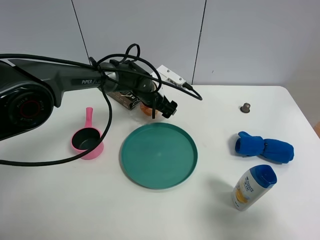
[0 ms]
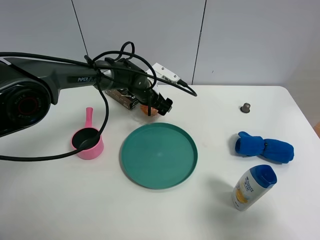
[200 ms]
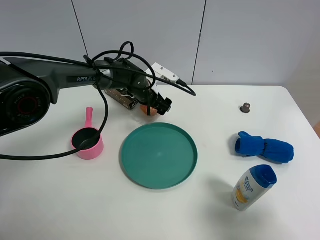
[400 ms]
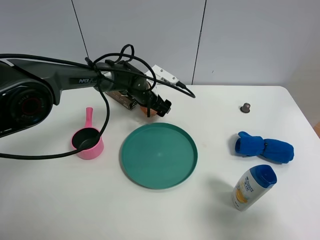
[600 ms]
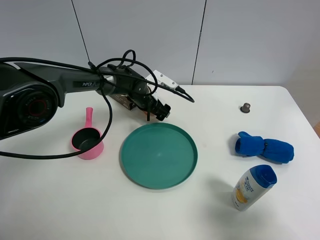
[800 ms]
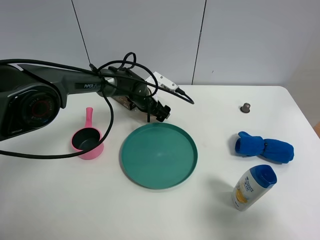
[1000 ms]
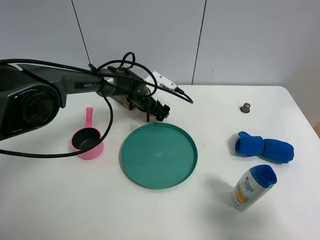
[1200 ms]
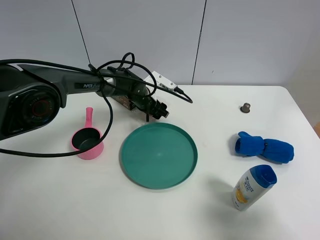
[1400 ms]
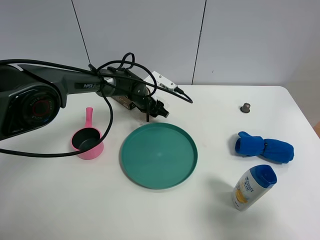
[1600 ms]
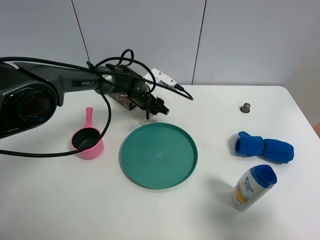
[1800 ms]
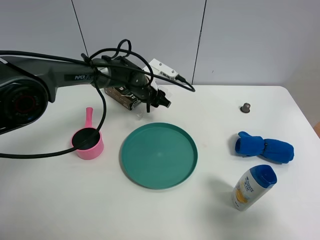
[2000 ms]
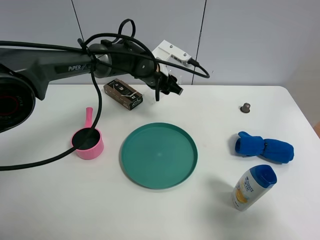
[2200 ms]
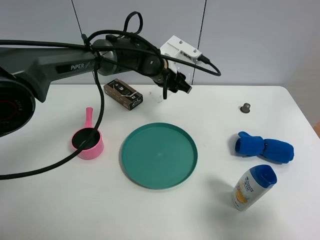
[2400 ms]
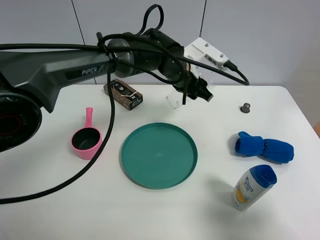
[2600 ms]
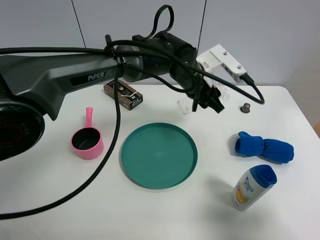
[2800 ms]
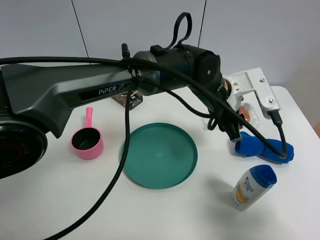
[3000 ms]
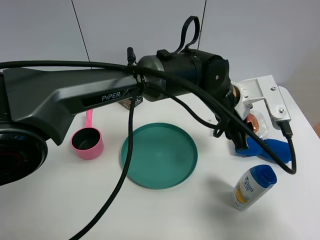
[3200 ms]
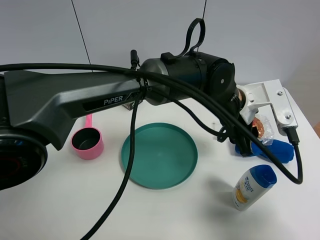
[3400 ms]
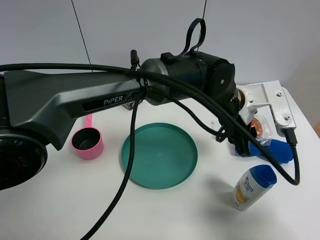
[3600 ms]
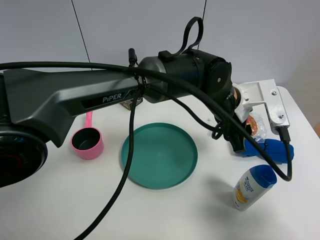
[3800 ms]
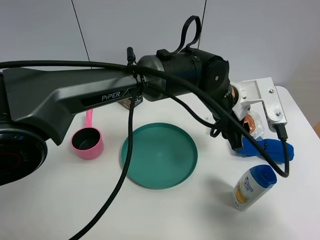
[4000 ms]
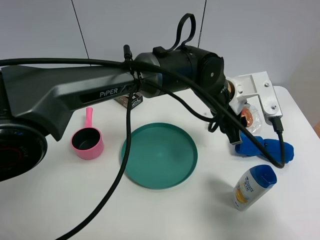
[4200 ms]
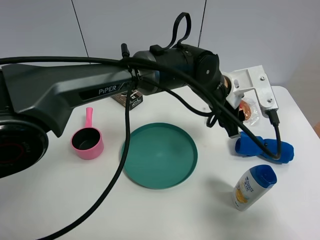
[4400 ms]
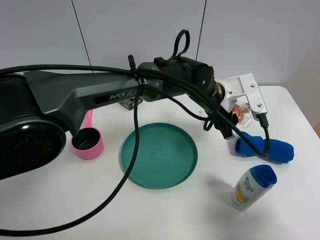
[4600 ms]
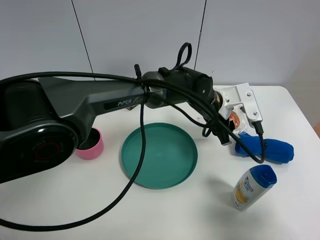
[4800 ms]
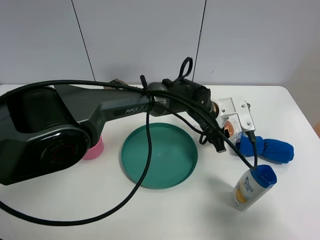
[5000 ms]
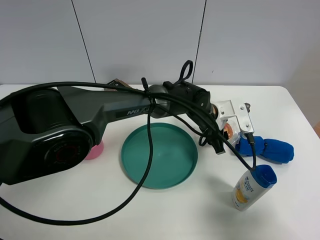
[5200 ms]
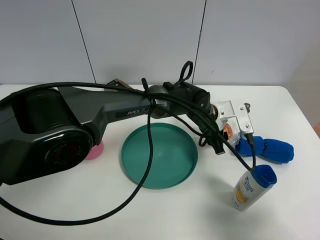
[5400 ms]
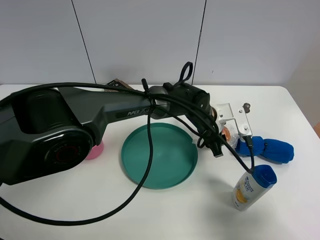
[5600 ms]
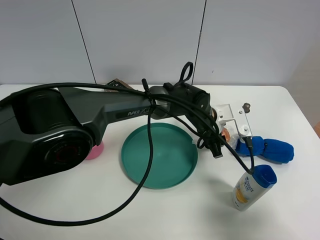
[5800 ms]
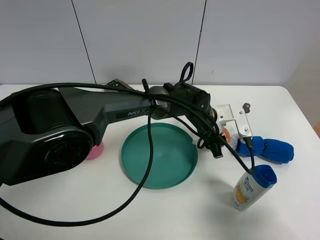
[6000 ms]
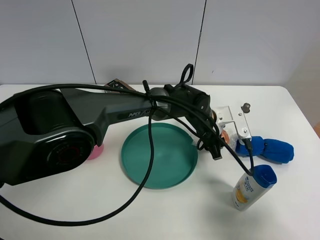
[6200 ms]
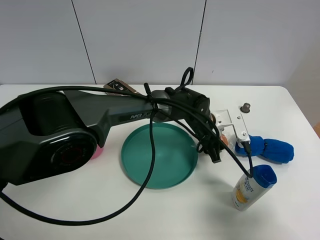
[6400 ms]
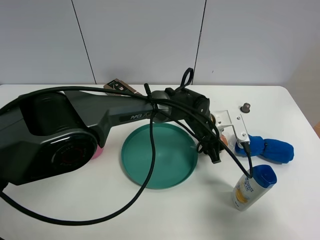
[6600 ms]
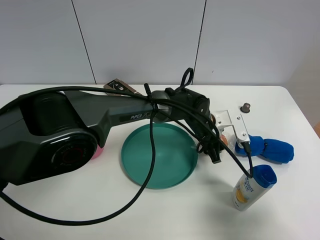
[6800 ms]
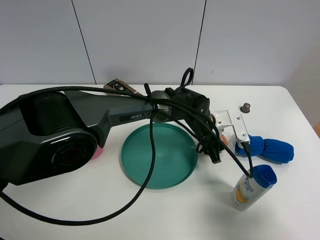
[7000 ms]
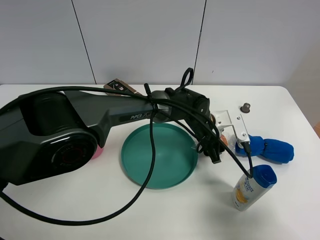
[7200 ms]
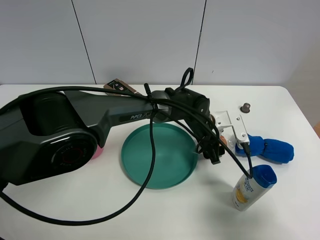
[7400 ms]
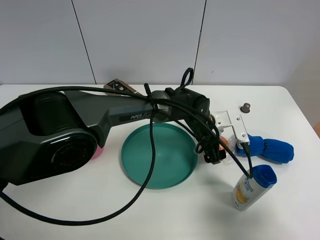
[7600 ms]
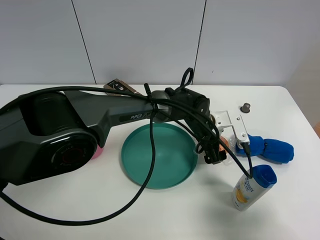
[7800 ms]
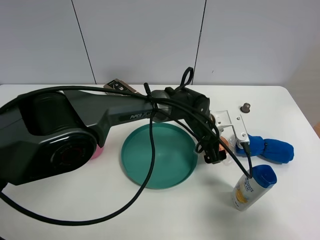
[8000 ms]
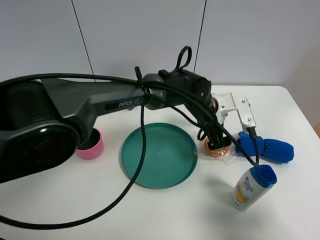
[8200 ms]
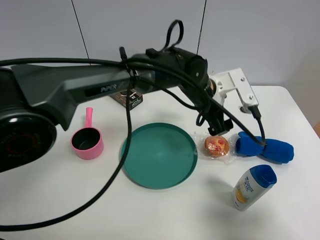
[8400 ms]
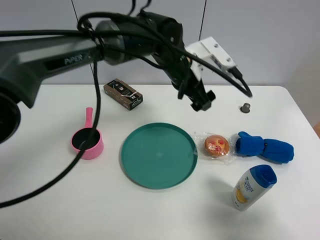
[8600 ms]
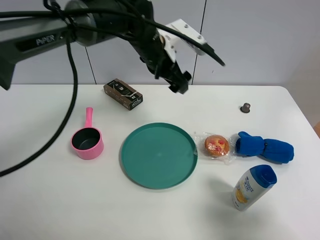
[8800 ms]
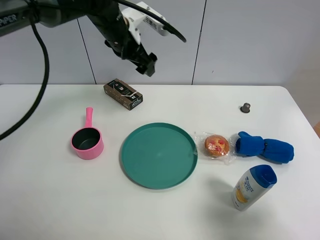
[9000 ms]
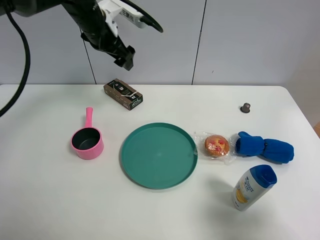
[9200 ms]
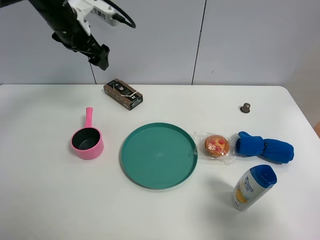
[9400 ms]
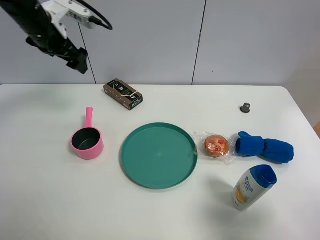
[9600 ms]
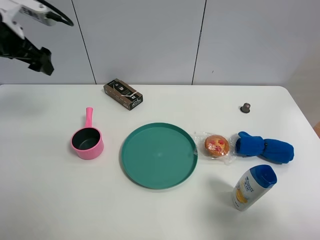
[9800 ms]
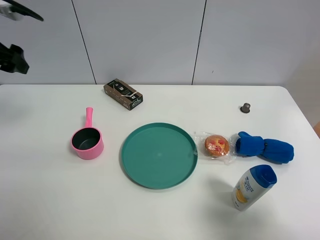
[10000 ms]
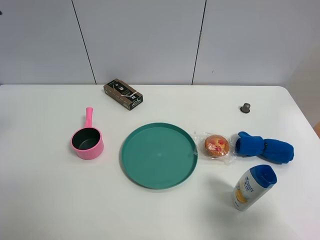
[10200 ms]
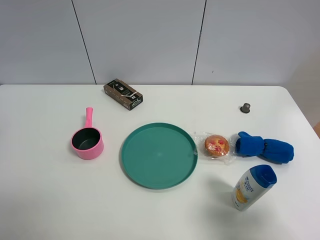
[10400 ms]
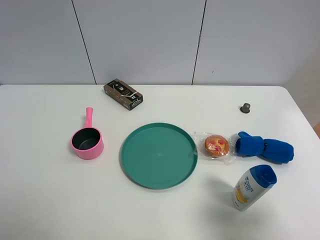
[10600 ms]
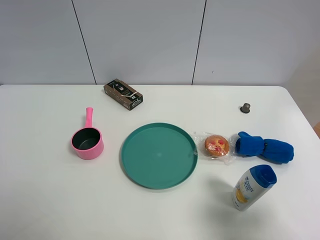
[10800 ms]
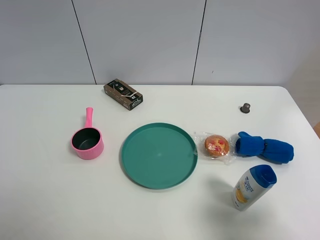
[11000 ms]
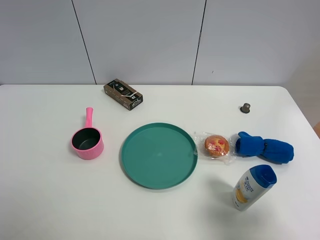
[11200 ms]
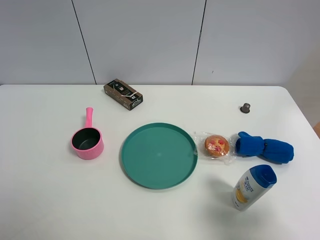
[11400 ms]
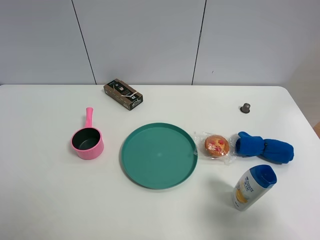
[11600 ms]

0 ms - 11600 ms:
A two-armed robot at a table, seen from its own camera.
Task of the whole recording: the gripper move the object.
Step, 1600 ms - 8000 ms: Place the egg tart on the table with the left gripper.
0 ms - 1400 ms: The left gripper closes up.
1400 ms - 2800 ms: The left gripper travels upward, to the right and backward by some 20 cm.
4400 ms - 5800 ms: The left gripper shifts roughly 10 cm downward.
5800 ms - 7200 ms: There are only small adjustments of the grippers.
7200 ms - 8800 ms: The left gripper travels upward, to the left and forward by approximately 25 cm, and opens.
8800 ms - 10200 ms: The left gripper is displaced to the left and backward by approximately 35 cm.

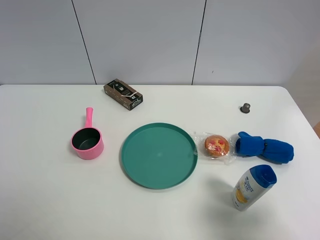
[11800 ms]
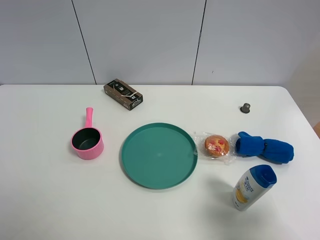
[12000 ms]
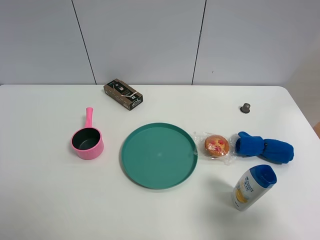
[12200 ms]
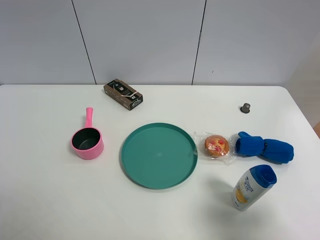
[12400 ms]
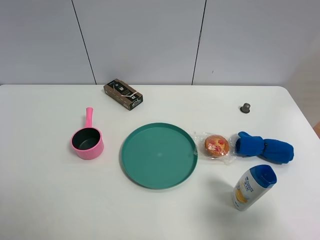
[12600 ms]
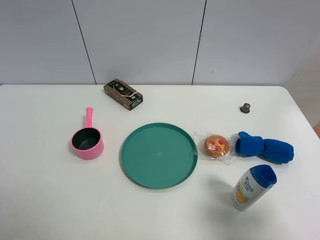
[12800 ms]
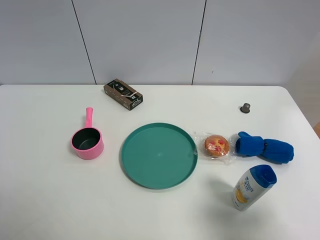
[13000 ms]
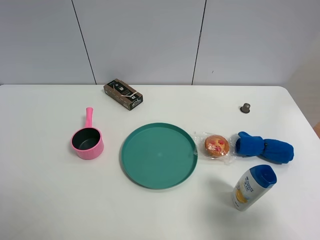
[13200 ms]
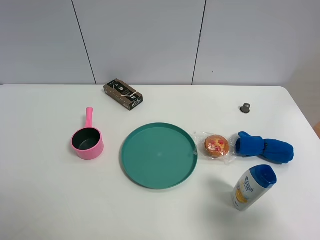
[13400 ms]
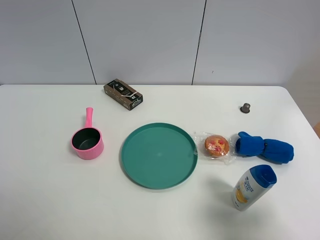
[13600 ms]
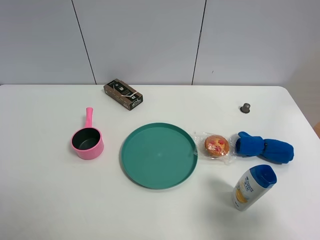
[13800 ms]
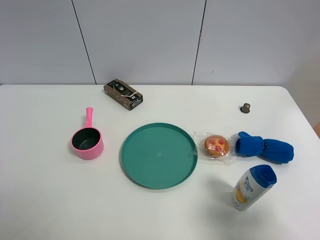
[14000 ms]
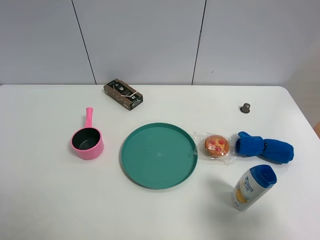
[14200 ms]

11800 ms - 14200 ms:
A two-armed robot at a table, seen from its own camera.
Task of the whole recording: the gripper move the object.
13000 ms - 14200 ms: The two grippers keep their place.

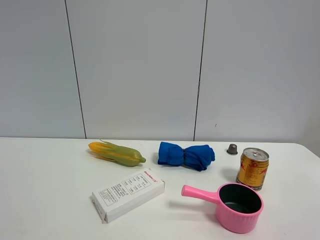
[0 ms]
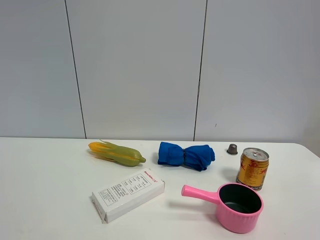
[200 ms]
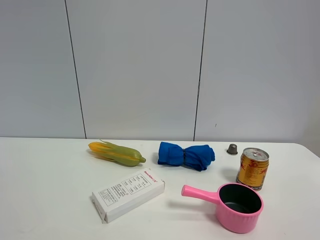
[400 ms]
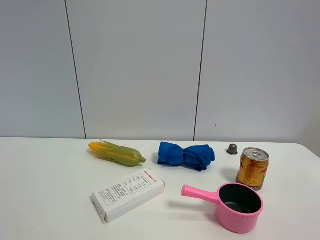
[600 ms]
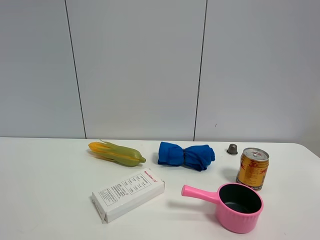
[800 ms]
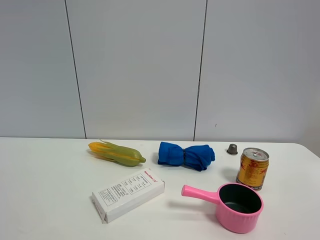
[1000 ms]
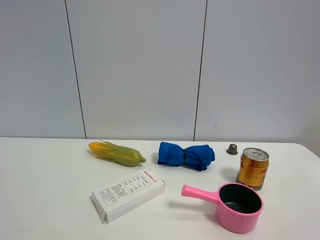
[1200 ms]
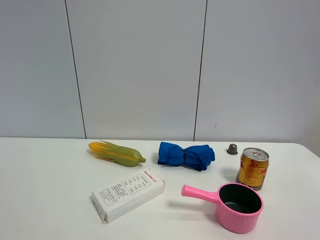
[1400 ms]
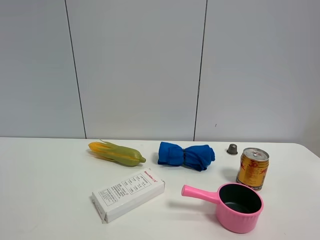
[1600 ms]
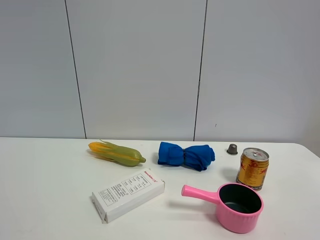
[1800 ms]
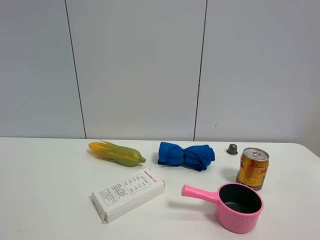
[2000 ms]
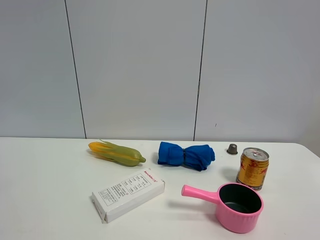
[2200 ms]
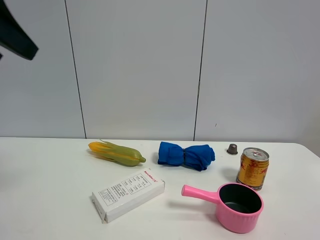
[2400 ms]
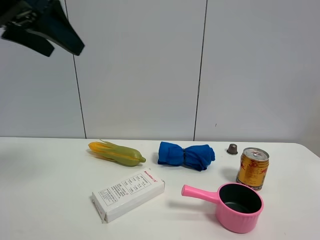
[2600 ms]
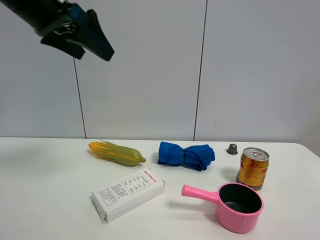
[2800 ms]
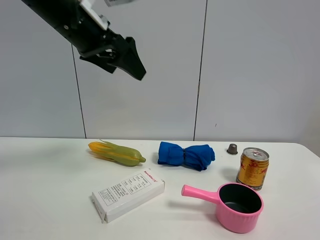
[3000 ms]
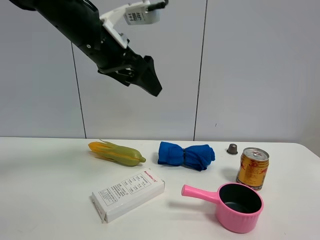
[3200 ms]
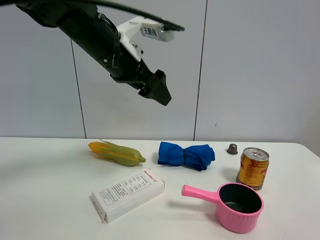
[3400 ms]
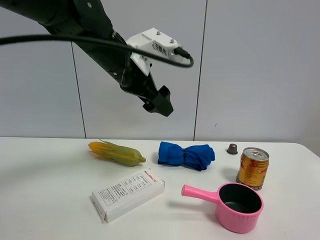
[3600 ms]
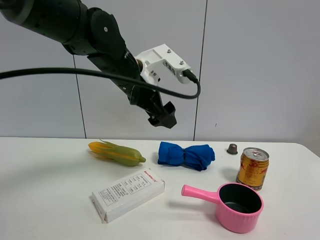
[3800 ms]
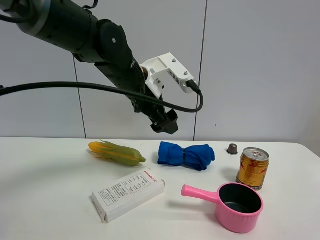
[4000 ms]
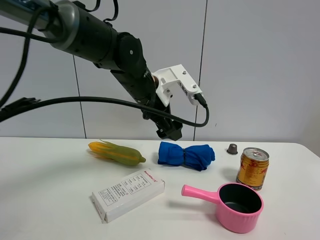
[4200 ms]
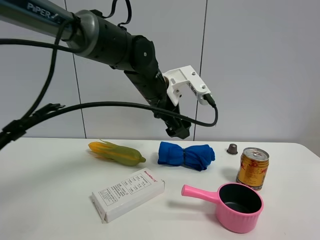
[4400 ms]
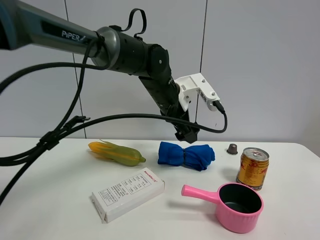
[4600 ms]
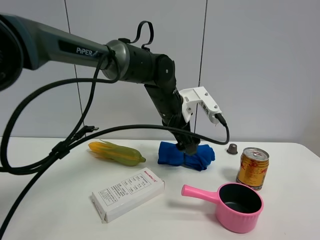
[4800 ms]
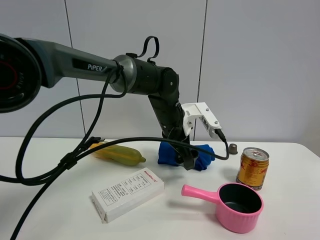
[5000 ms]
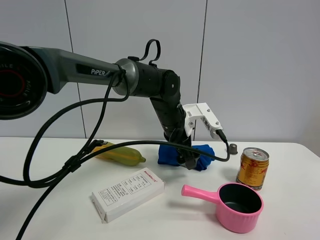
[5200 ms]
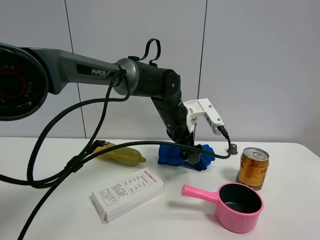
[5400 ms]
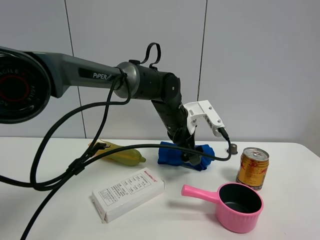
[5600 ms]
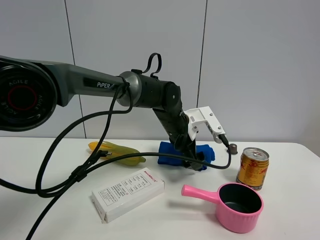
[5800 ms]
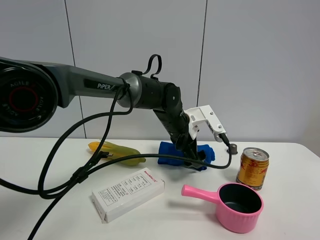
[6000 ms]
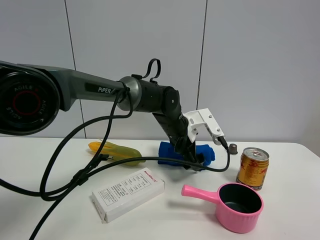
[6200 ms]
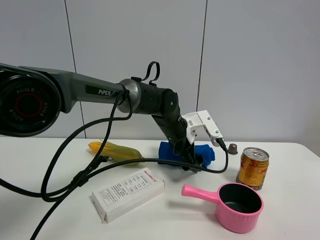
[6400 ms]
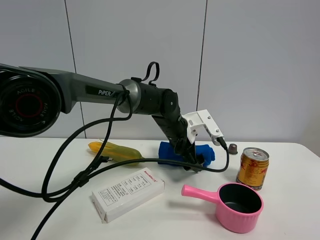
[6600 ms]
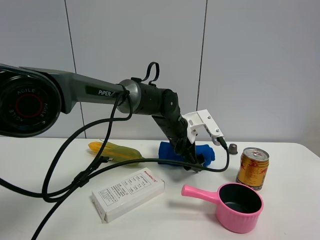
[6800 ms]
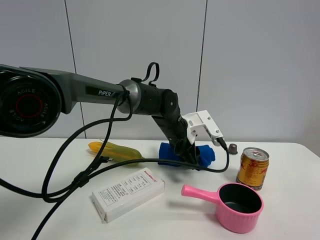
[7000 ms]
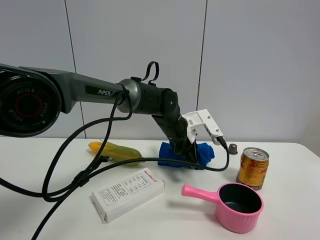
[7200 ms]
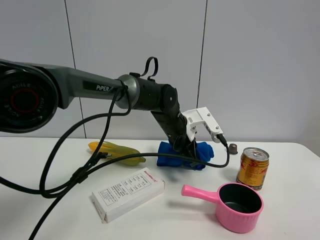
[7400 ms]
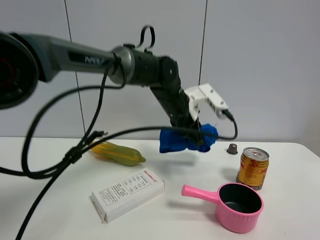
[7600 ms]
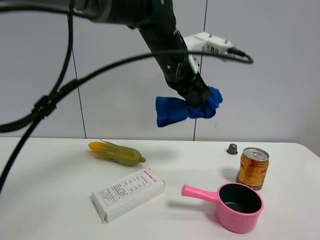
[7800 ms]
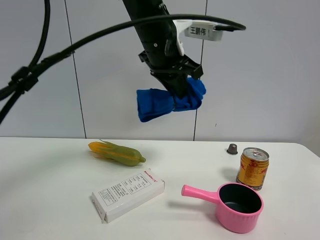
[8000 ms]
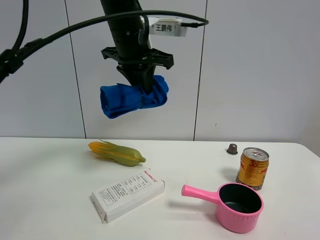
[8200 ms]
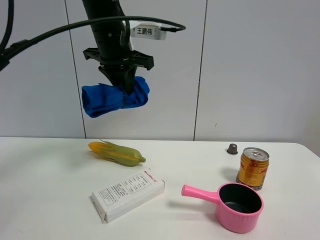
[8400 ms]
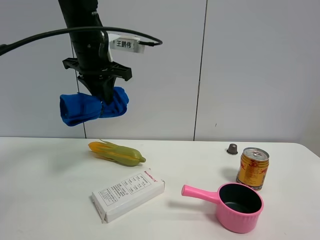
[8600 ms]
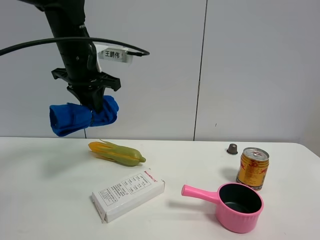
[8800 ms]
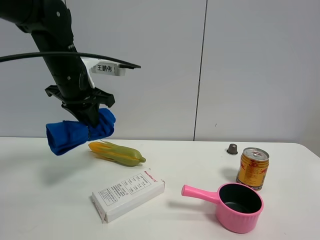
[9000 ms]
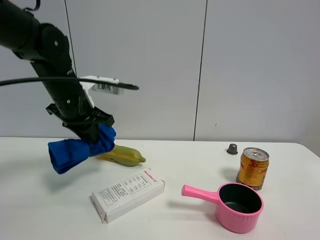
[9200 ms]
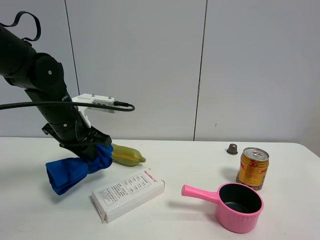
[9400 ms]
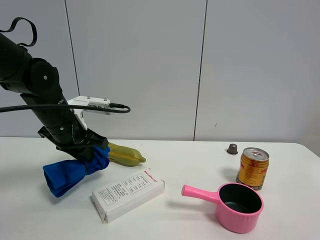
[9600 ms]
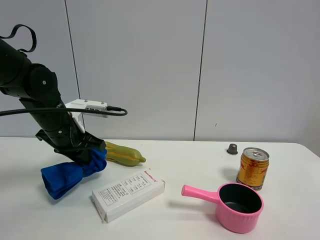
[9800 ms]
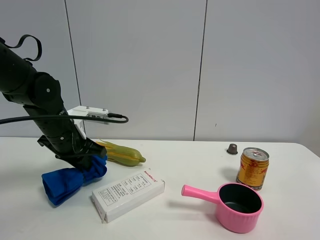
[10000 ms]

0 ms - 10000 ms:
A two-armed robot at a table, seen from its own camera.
Task of the whole recording: the gripper move the object.
Step, 0 ms - 7200 ms: Grasp the blue towel with the left gripper.
0 ms - 1400 ms: Both grippers stay about where they are.
1400 ms - 2800 ms: The left gripper travels forward by approximately 35 cm.
2800 ms - 4200 ms: The left gripper travels to the right, downward and forward by roughly 25 cm.
4200 ms - 5800 ms: The left gripper goes approximately 10 cm downward and to the right.
5800 ms - 7200 ms: The left gripper closes.
7200 ms - 8600 ms: The left gripper heads upward and to the left, covering roughly 25 cm.
8600 ms - 10000 ms: The left gripper goes about 15 cm downward.
